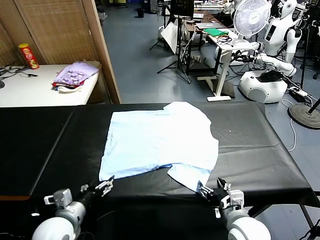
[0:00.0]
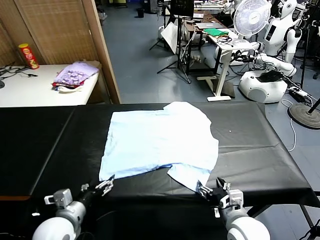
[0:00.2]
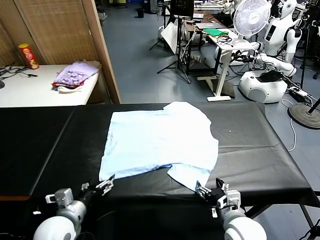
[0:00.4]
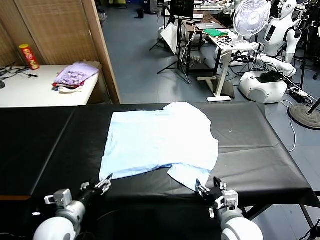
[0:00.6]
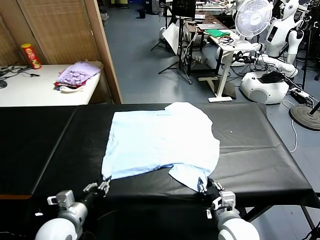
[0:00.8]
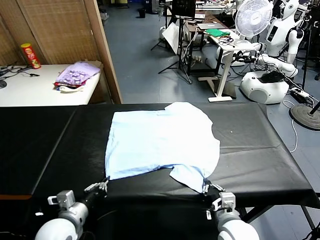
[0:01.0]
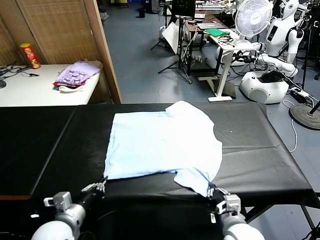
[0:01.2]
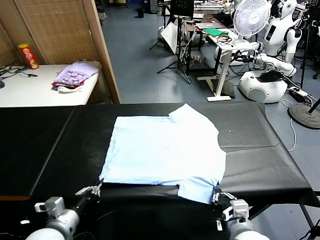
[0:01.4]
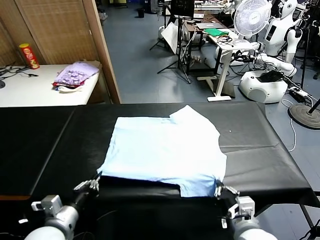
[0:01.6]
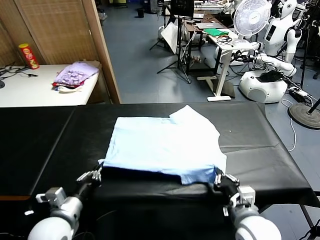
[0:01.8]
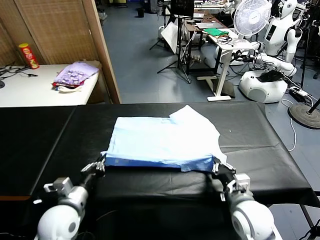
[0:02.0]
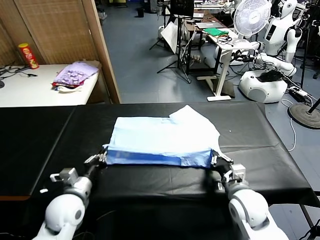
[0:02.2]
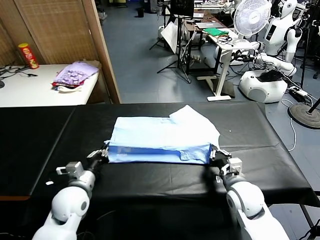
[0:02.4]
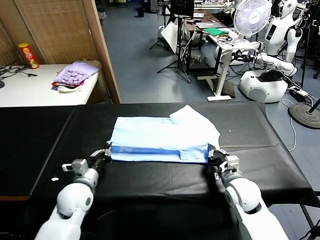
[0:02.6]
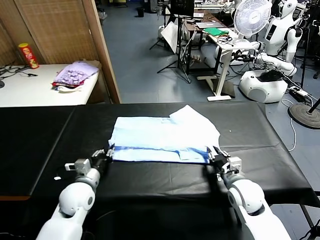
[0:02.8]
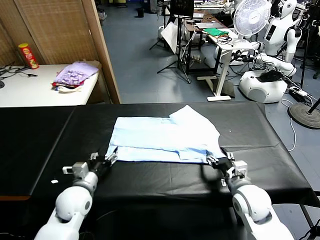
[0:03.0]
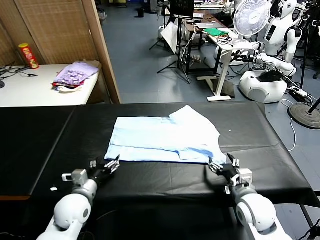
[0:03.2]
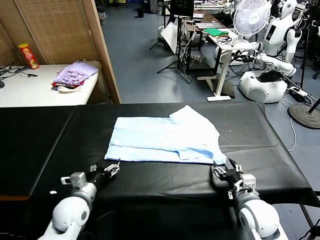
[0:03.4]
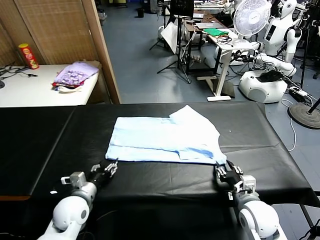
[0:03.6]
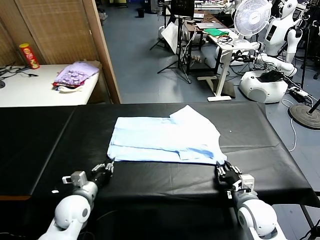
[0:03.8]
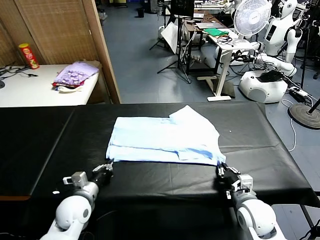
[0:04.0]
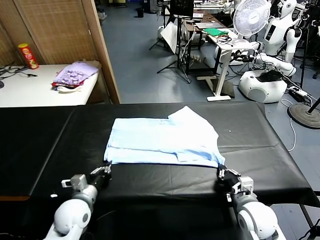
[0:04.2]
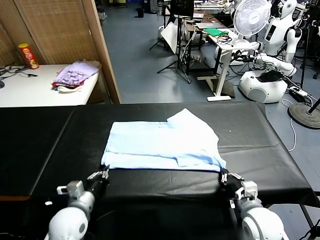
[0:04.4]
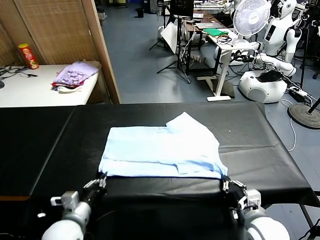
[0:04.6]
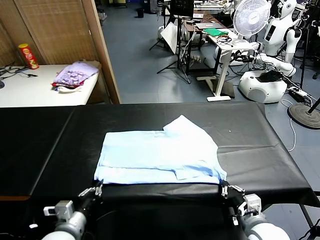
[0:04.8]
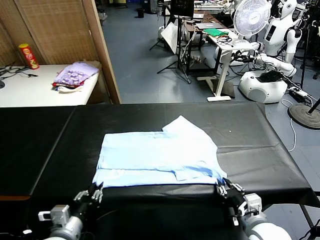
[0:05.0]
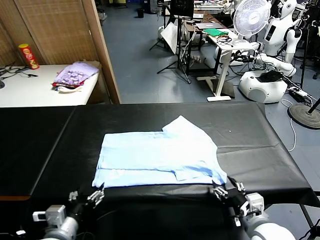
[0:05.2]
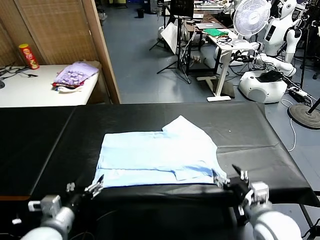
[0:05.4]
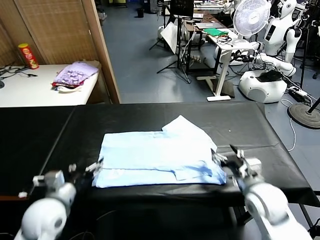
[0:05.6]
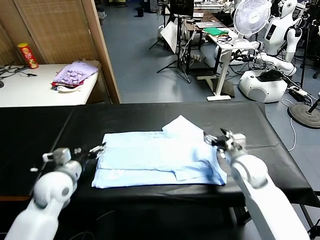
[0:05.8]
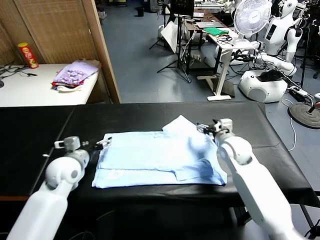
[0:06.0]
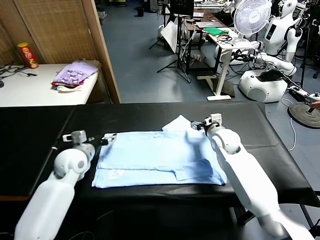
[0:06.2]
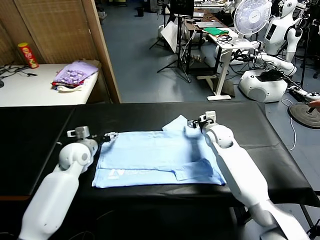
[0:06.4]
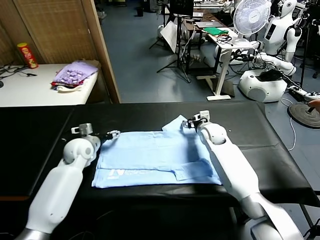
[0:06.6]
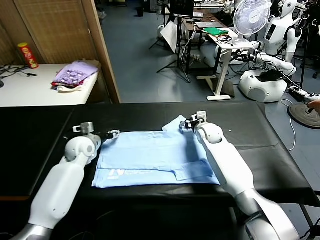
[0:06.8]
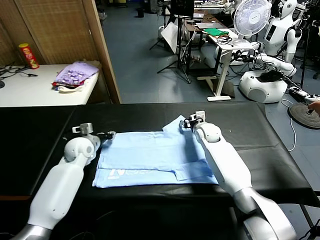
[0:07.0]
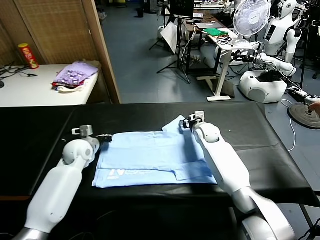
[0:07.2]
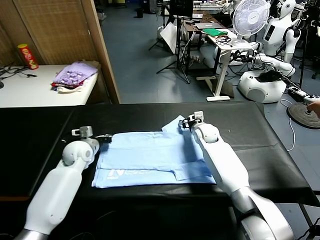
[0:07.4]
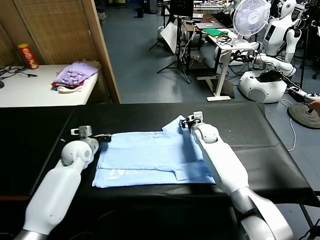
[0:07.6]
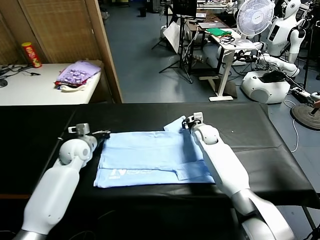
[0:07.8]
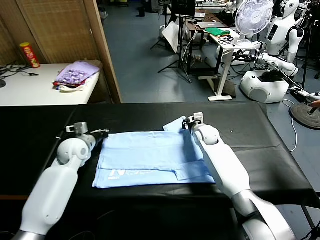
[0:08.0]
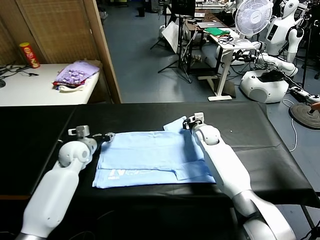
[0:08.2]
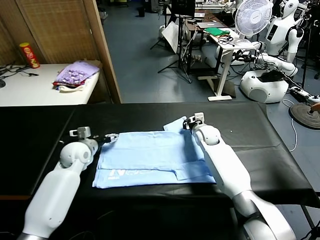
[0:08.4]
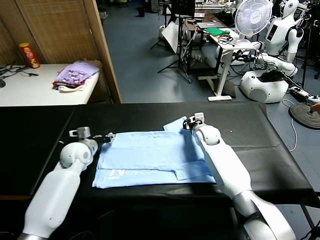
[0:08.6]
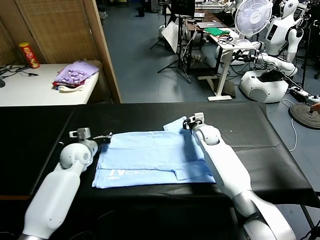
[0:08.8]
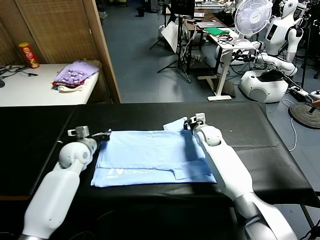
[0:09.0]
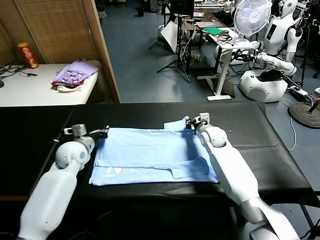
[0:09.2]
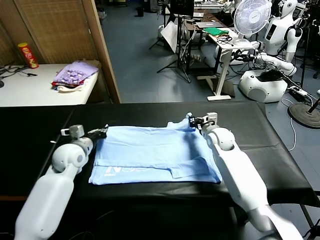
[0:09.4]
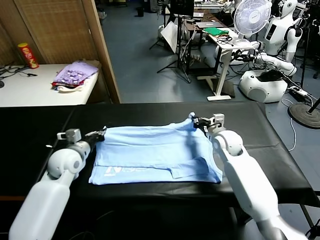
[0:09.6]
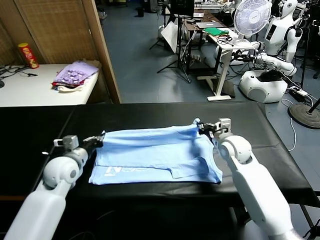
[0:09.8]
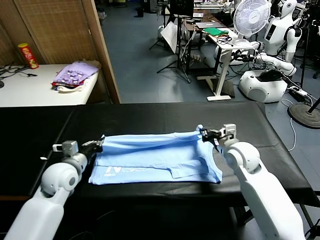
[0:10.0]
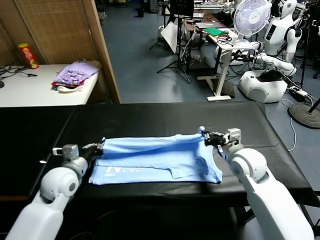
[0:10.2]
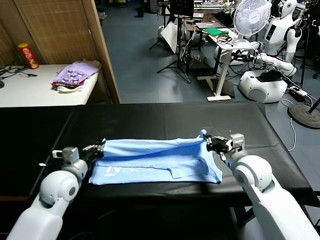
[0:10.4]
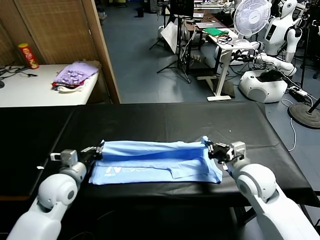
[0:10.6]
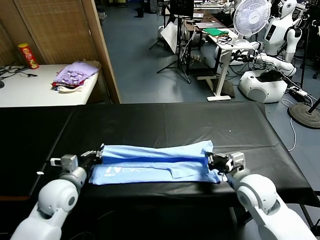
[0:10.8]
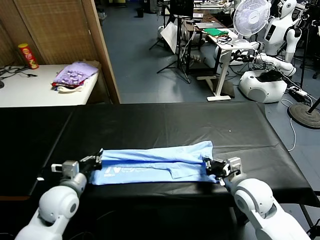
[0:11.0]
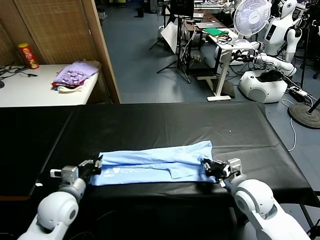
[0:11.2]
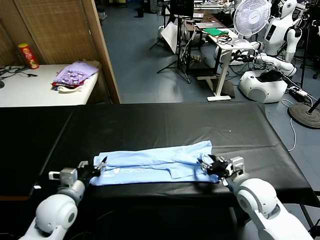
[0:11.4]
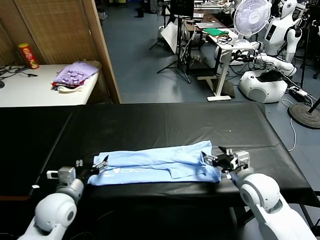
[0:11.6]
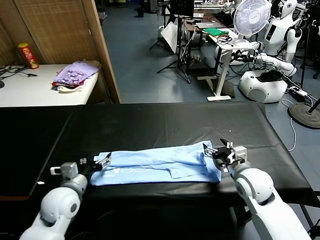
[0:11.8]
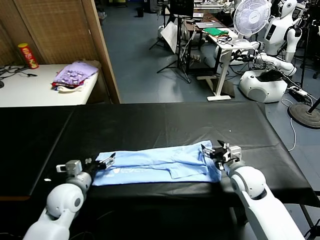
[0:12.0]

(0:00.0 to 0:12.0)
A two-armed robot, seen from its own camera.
Task of the whole recording: fold and organize the clothes.
Step, 0:00.0 - 0:00.8: use both grippers simultaneously to clamp the lower edge of the clothing fabric.
Step, 0:01.2 - 0:02.8: use both grippers to drag the lower edge of the fabric forward and fold it over the upper edge.
Step, 0:03.0 - 0:05.0: Drag the clothes downward with both gripper.
Step, 0:05.2 - 0:08.6: use both grippers simultaneously to clamp the upper edge of the clothing fabric.
Step, 0:08.8 - 0:11.2: use both grippers to drag the upper edge of the fabric backward and fold it over the lower edge.
0:01.6 - 0:03.0: The right gripper goes forward and returns, about 10 cm each way, and opens its fingers. The left gripper travels forward and downward by about 10 cm, and opens up.
0:03.0 - 0:04.4: Both grippers travel together backward, some 5 cm. The left gripper closes; the right gripper closes up.
0:04.4 - 0:06.0: The right gripper moves forward, approximately 30 cm, and opens its fingers. Meanwhile the left gripper goes roughly 20 cm forward, and opens up.
0:06.0 - 0:07.6: The left gripper moves forward, approximately 5 cm, and closes up, while the right gripper changes place by some 10 cm, and closes its fingers.
0:07.6 - 0:09.0: The left gripper opens, then closes again.
0:09.0 - 0:10.4: The left gripper heads backward, covering approximately 15 cm, while the right gripper shifts approximately 20 cm backward.
0:10.4 - 0:12.0: The right gripper shifts approximately 10 cm downward, and opens its fingers. The left gripper opens.

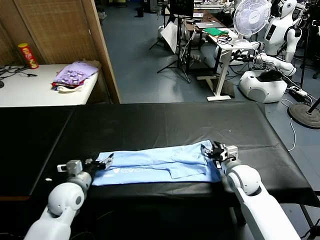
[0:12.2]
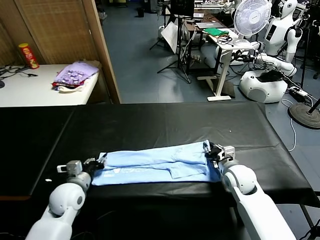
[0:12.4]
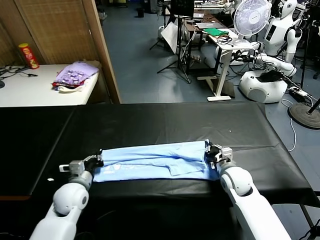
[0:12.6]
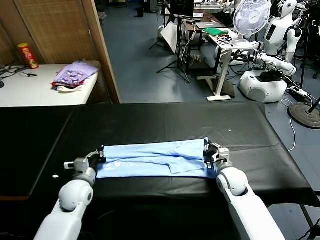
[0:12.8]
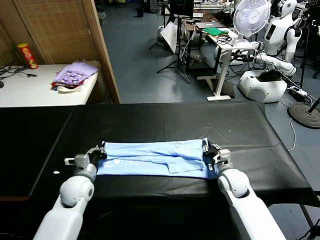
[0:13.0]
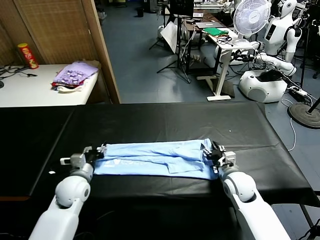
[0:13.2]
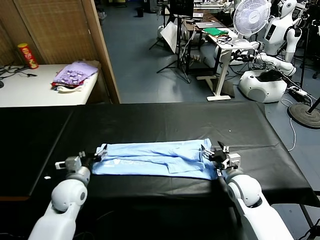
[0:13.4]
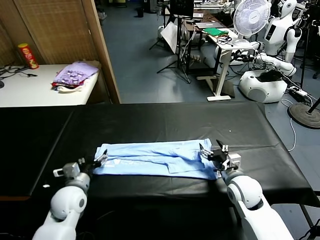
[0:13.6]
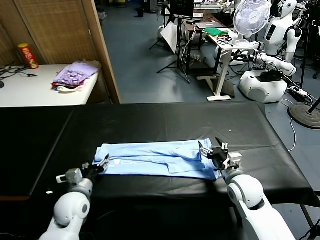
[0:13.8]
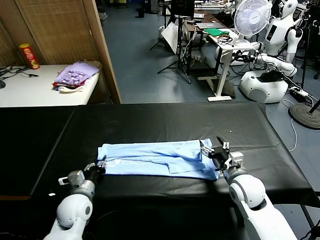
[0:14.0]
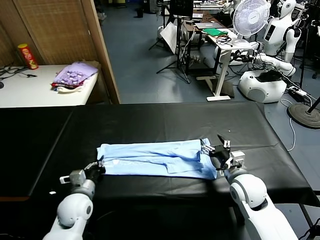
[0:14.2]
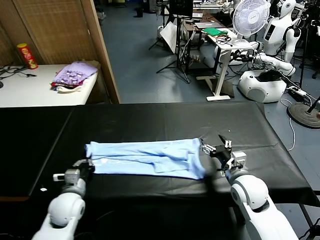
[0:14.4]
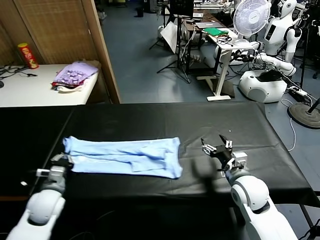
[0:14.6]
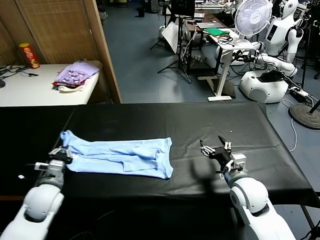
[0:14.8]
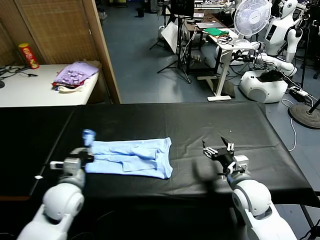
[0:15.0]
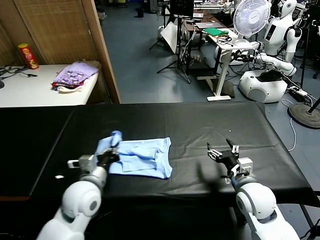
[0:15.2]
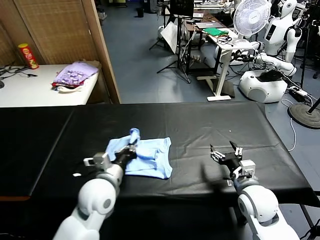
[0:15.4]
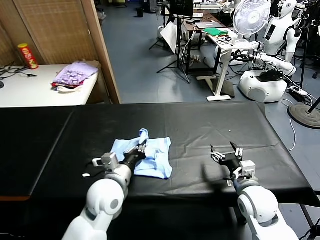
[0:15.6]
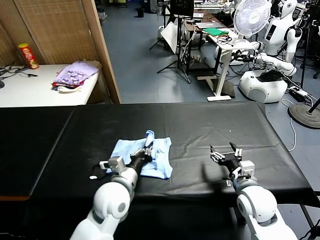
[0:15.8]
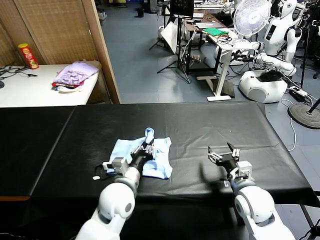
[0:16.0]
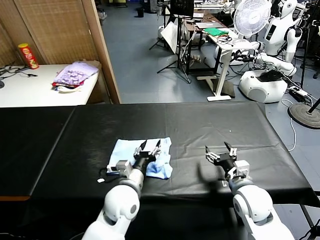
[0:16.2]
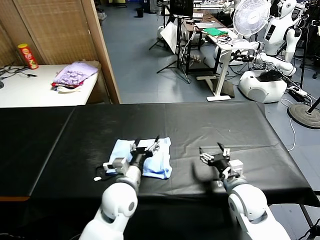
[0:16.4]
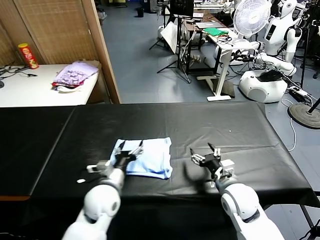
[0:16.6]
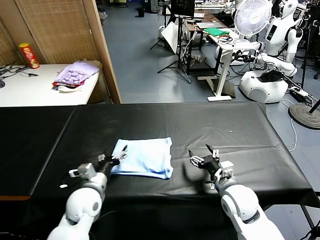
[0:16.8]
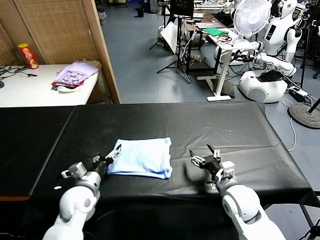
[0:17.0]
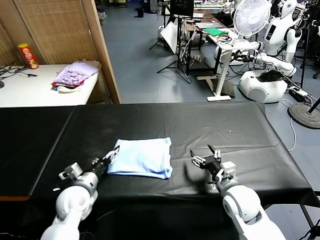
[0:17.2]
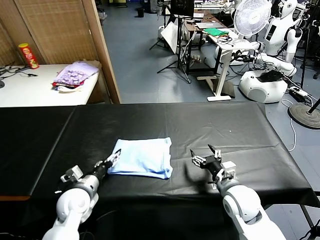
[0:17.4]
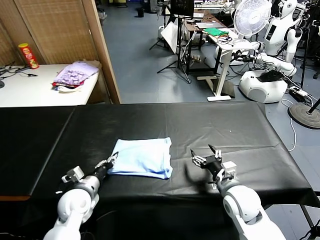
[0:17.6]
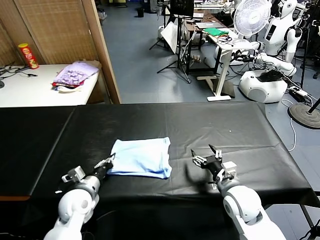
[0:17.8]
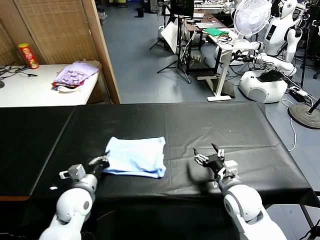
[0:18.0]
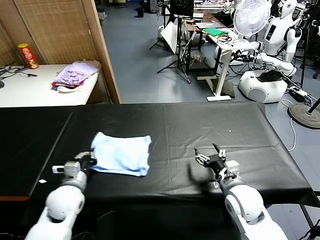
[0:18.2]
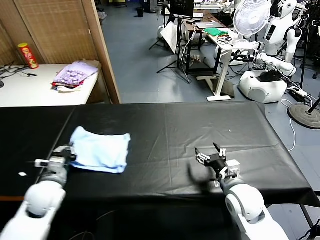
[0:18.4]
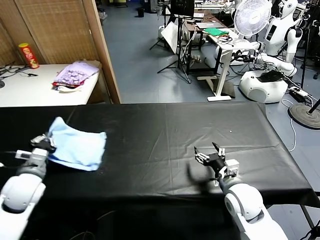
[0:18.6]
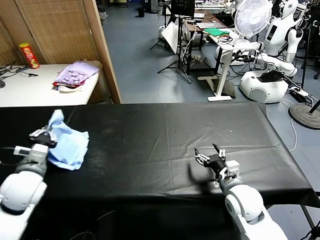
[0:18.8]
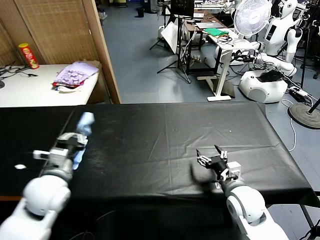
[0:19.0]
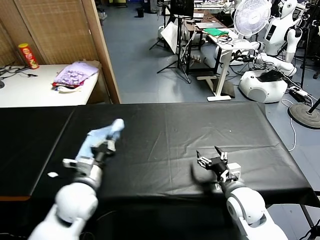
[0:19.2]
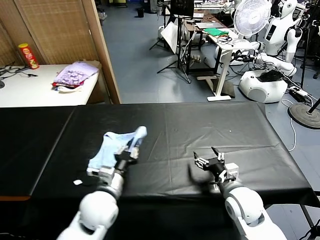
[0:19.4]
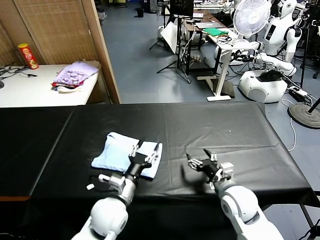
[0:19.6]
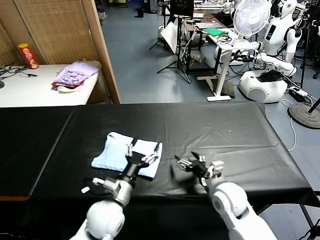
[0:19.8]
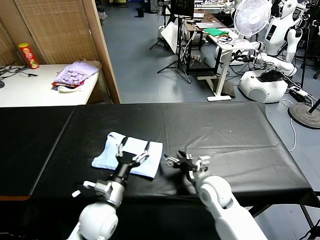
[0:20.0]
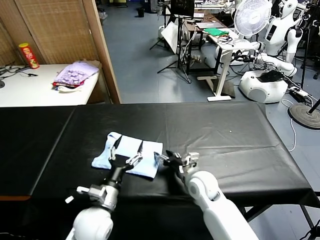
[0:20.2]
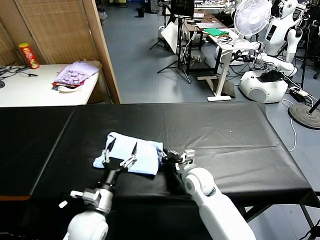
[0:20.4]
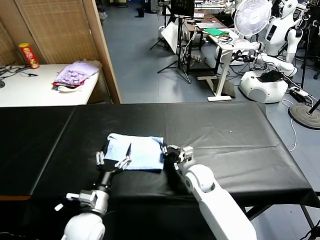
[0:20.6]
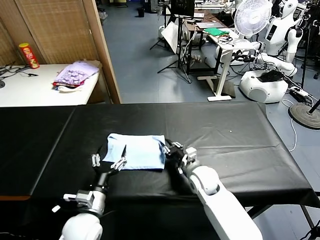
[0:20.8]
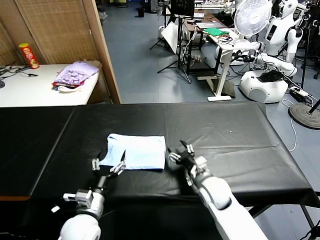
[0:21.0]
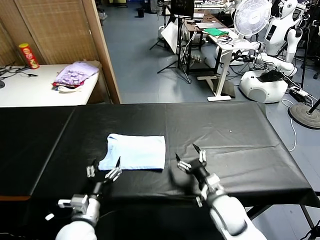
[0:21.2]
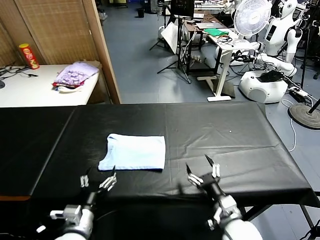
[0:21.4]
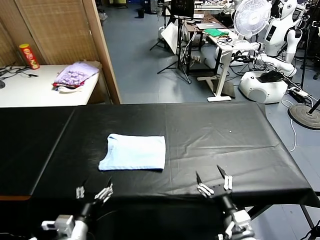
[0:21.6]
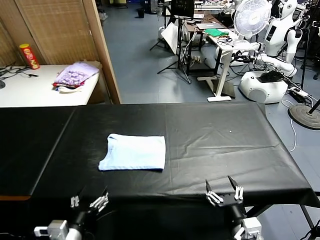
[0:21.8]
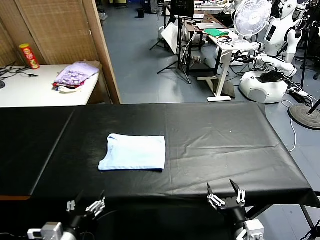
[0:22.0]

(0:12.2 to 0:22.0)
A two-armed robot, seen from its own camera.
Task of the whole recording: fold and organize the clothes.
Step, 0:12.2 - 0:14.0: use the left gripper to clamp the left edge of the fabric.
Step, 0:14.2 - 0:16.0: use the left gripper to drag the left edge of the fabric to the left and folds it over the right edge.
Step, 0:16.2 - 0:19.4: Flip the folded clothes over with left gripper.
Step, 0:19.6 - 0:20.8: Drag the clothes to the center of the table.
0:12.2 - 0:13.6: The left gripper closes and opens again; the right gripper moves approximately 5 cm, and opens.
0:13.6 - 0:15.0: The left gripper is displaced upward by roughly 5 cm, goes to the left and returns, some 5 cm each way, and closes its fingers.
0:15.0 - 0:16.4: The left gripper moves to the right, some 15 cm, and opens.
0:16.4 - 0:17.8: The left gripper travels to the left by roughly 15 cm, and closes up.
0:17.8 - 0:19.2: The left gripper heads upward, covering some 10 cm, and goes to the left and returns, roughly 10 cm each way.
0:19.2 - 0:20.6: The left gripper is displaced downward and backward by about 10 cm, and opens up, while the right gripper heads to the left and forward, covering approximately 15 cm, and closes its fingers.
0:20.6 - 0:22.0: The right gripper shifts roughly 30 cm backward and to the right, and opens its fingers. The left gripper goes about 10 cm backward and to the left.
